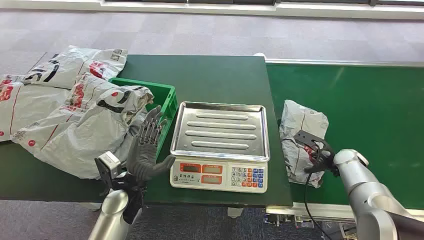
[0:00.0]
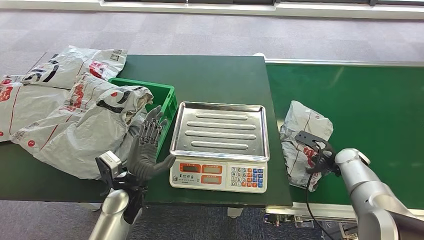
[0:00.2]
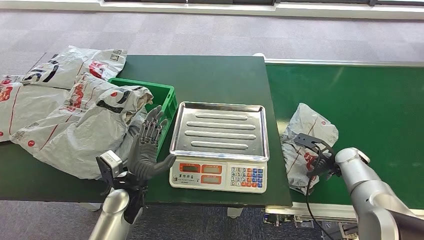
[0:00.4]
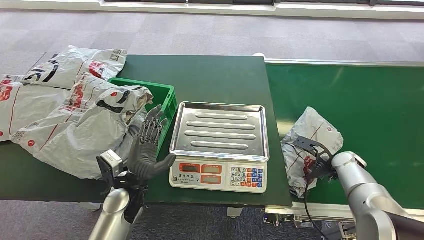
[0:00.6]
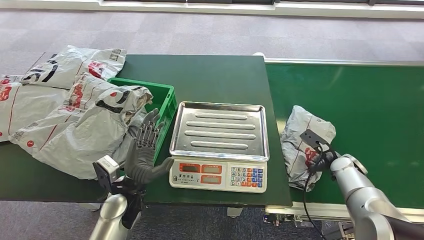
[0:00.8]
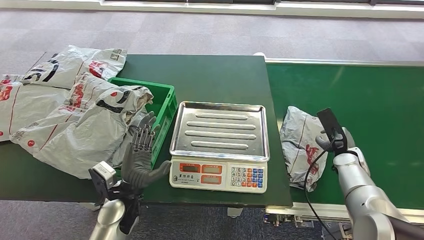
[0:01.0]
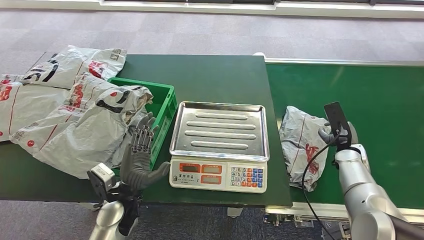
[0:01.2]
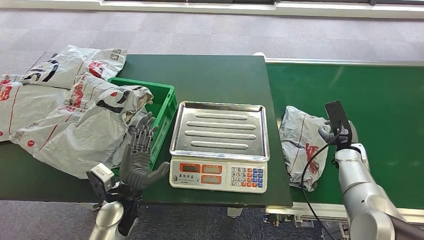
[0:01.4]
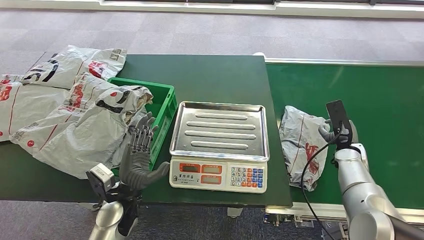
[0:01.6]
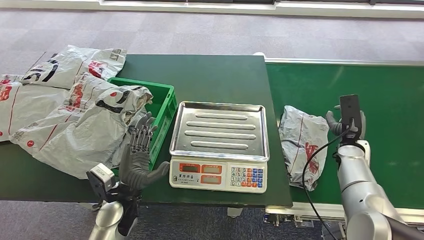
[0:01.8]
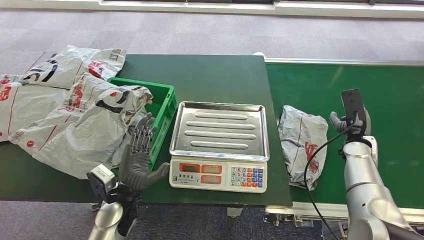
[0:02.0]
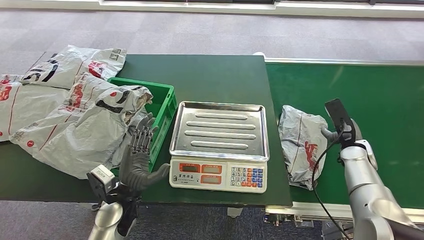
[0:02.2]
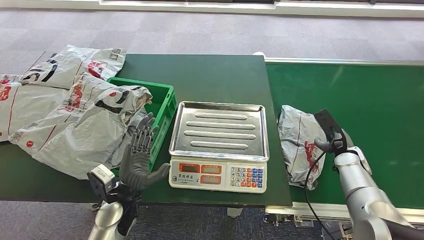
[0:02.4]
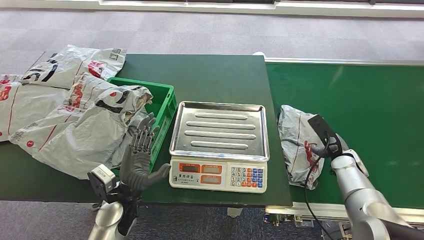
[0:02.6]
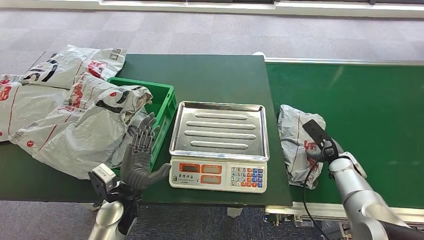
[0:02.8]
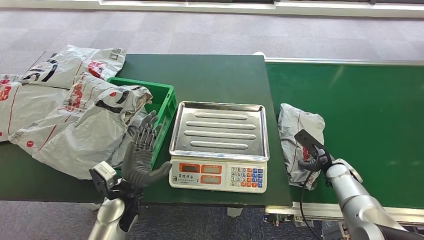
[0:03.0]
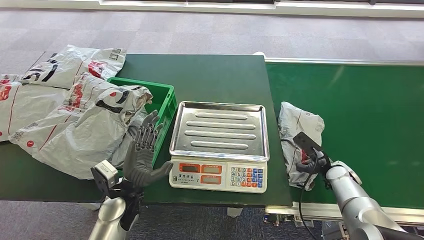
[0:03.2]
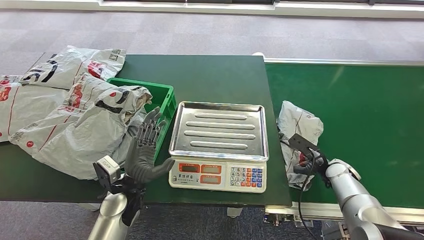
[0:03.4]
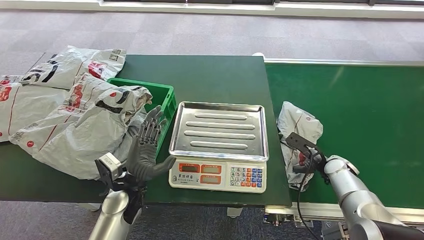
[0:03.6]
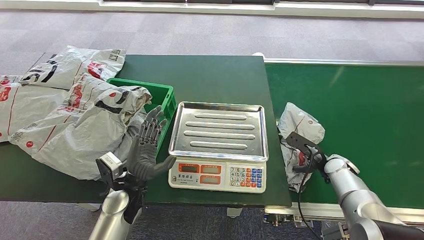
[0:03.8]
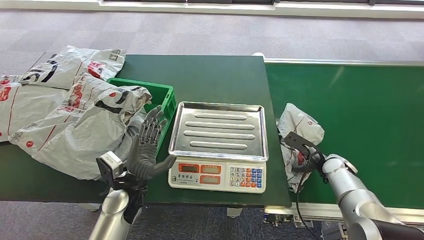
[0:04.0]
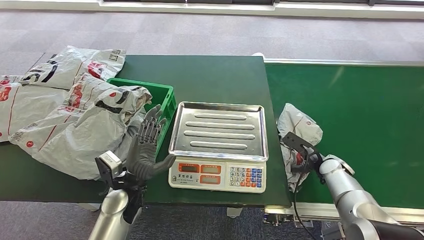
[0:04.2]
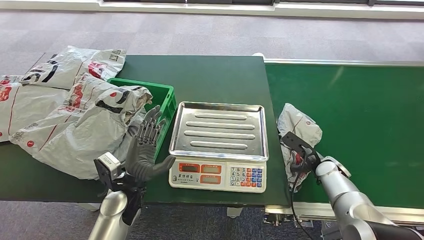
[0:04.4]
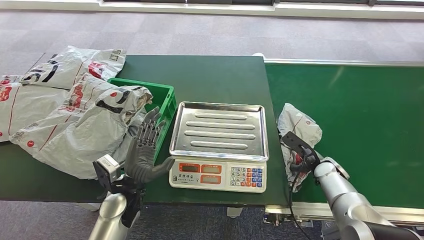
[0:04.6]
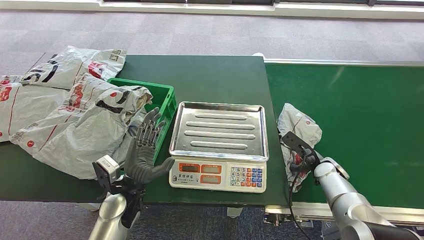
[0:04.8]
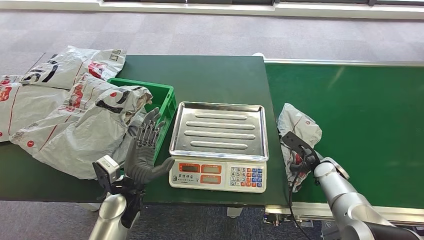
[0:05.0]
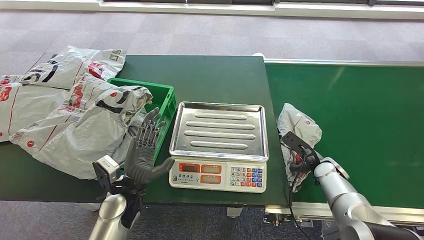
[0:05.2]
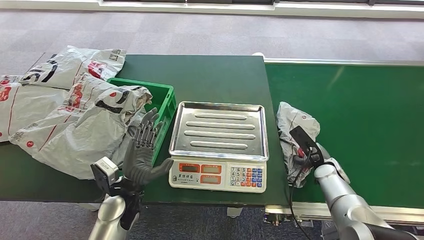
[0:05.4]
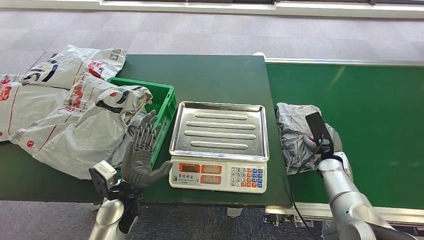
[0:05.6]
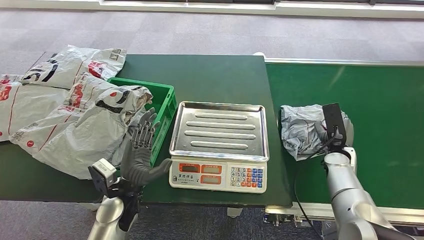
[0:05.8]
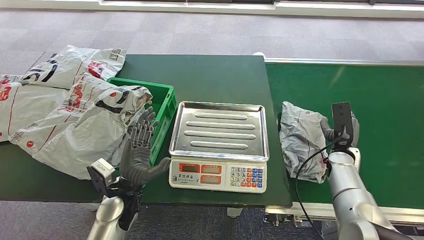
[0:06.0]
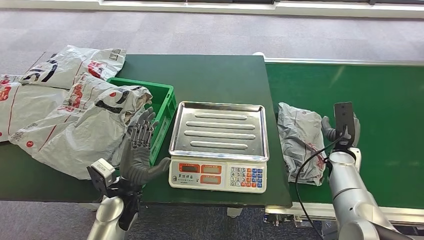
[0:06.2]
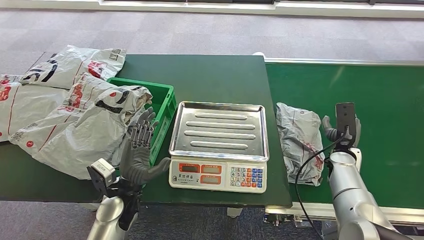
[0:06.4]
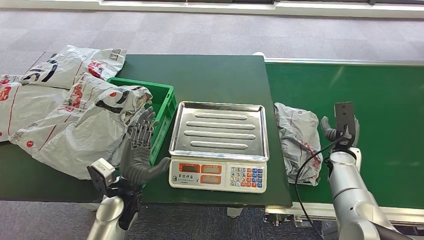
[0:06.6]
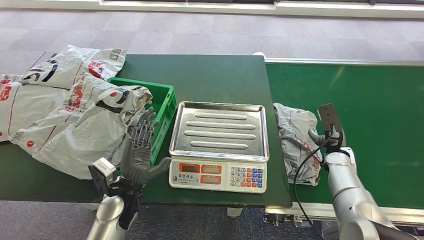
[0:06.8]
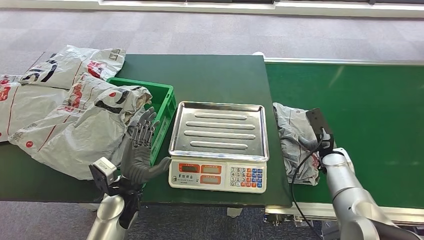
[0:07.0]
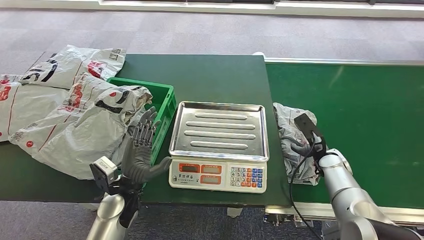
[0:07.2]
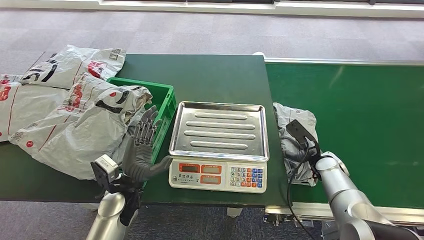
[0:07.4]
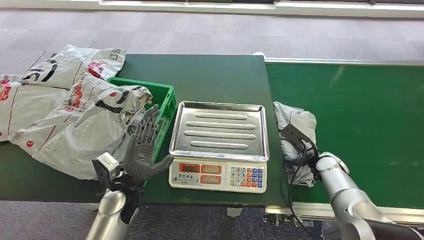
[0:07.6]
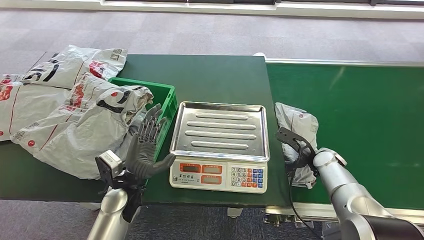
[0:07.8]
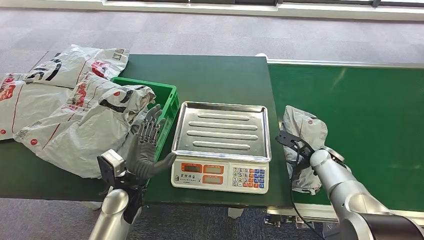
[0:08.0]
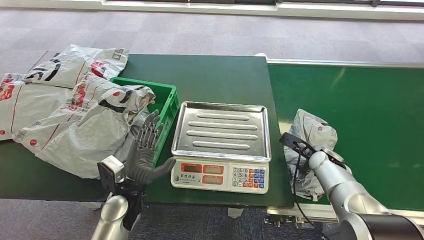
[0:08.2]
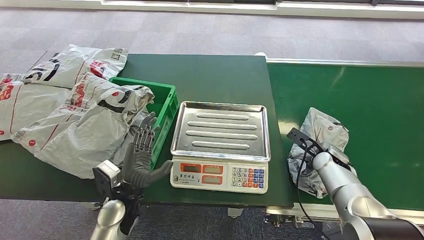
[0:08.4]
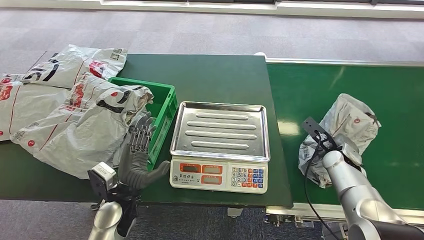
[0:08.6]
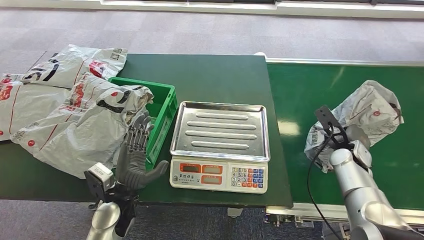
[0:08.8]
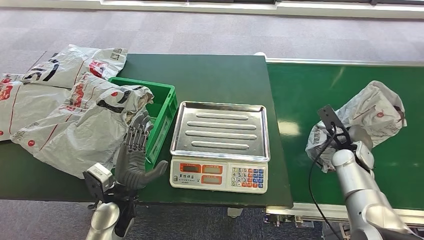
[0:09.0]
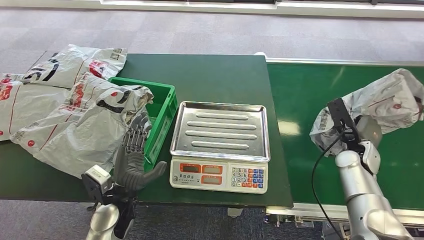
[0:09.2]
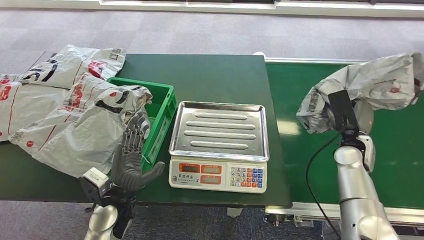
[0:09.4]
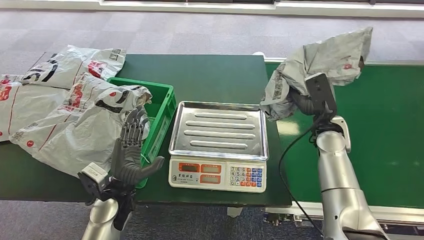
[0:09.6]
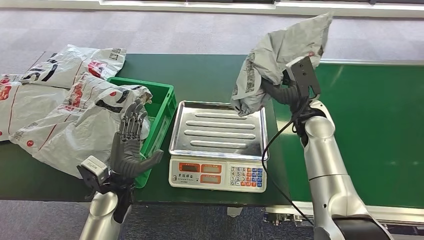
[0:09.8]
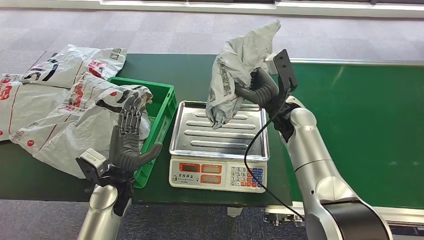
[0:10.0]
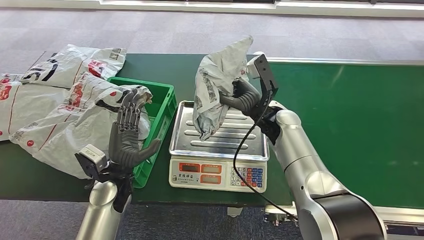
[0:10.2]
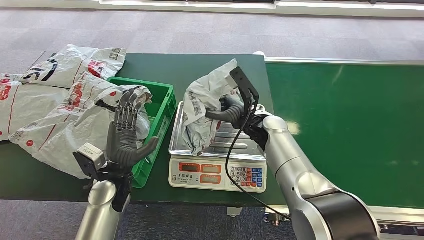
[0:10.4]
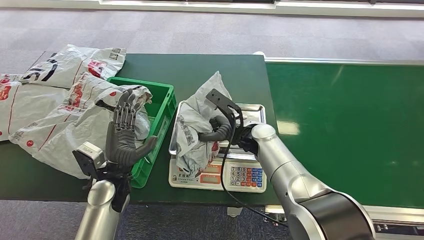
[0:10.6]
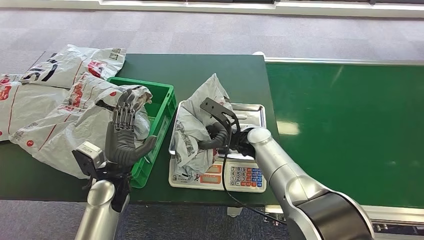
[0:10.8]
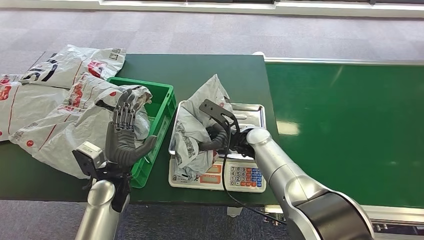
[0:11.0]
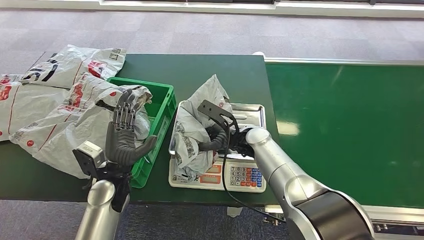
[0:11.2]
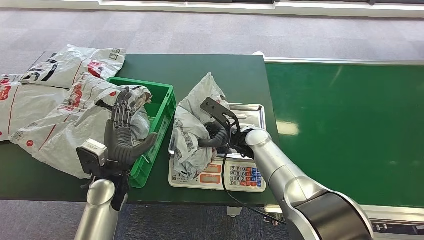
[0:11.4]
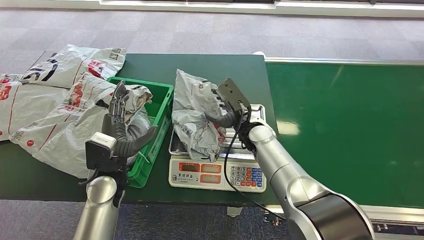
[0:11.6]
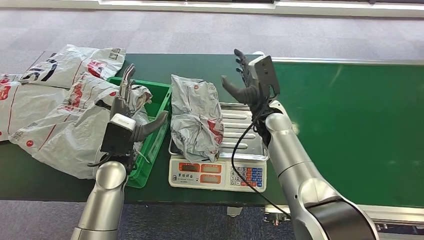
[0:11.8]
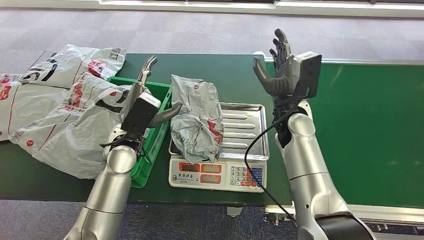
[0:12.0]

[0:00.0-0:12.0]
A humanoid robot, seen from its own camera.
Step, 0:00.0 to 0:08.6: Pick up the package from the conveyor belt.
Step, 0:09.0 to 0:10.8: Place the package onto the inbound machine.
0:01.6 to 0:03.0: The right hand shifts by some 5 cm.
0:03.0 to 0:04.4: The hands move only a little.
0:07.6 to 0:09.0: The right hand travels upward by about 5 cm.

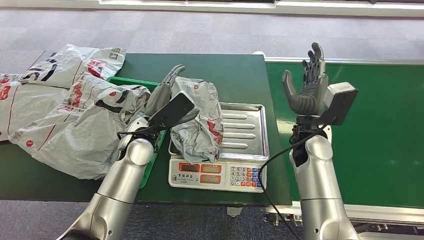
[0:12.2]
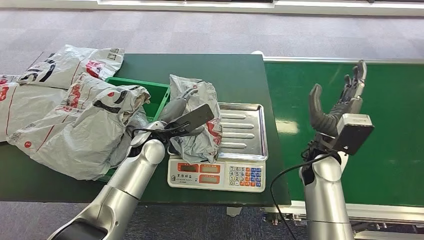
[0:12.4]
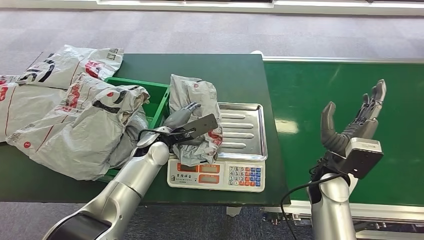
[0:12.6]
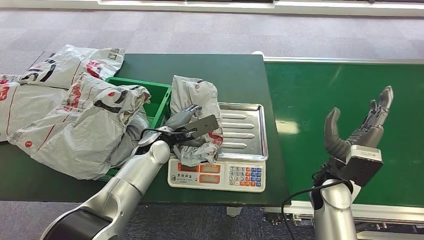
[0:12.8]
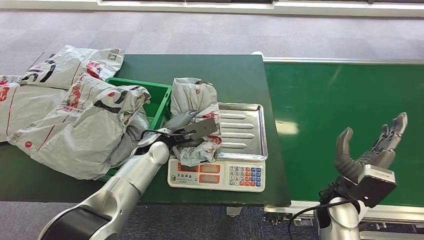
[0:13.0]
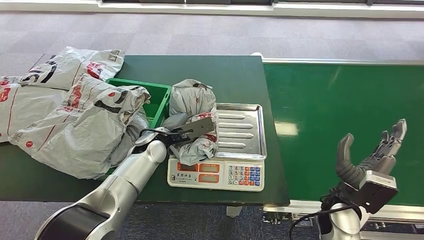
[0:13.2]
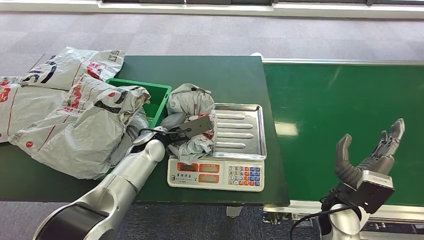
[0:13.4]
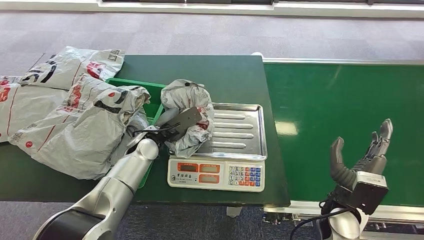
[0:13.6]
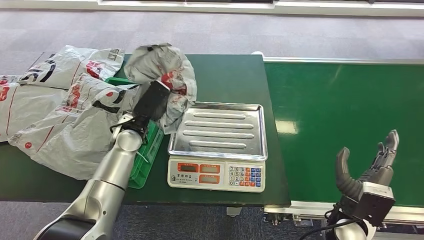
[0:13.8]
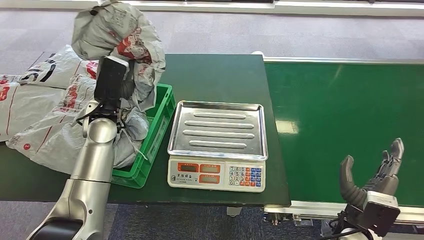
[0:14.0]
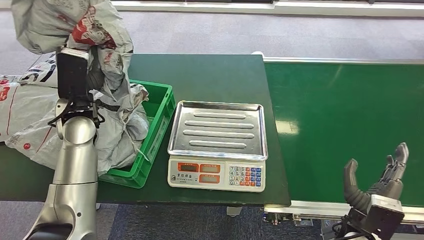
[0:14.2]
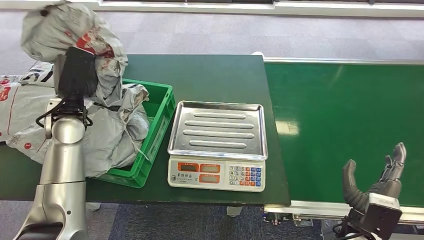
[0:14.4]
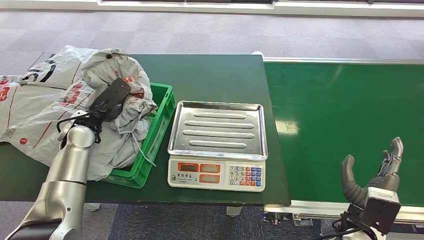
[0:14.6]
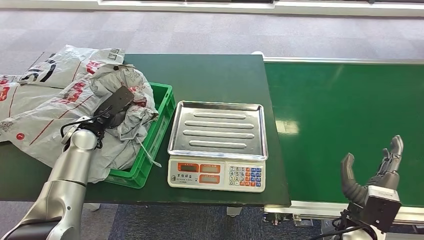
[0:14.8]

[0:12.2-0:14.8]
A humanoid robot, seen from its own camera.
Step, 0:12.2 to 0:13.6: Pick up the package from the inbound machine.
Step, 0:13.8 to 0:14.8: Place the package into the parcel locker.

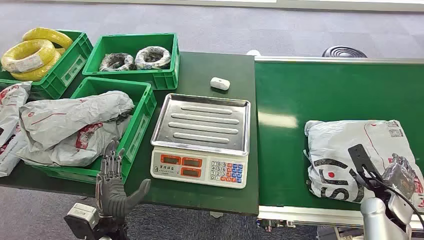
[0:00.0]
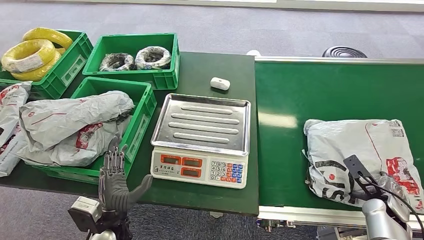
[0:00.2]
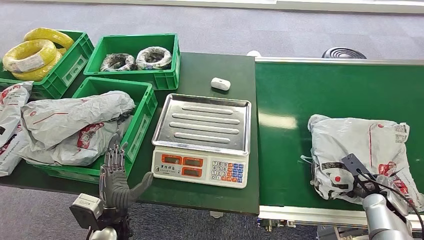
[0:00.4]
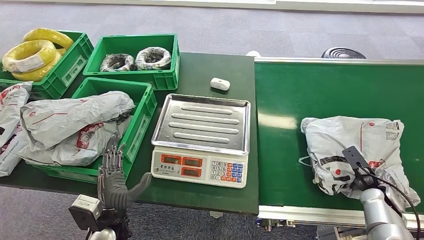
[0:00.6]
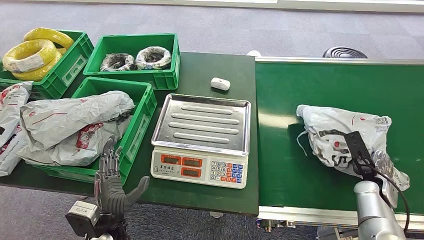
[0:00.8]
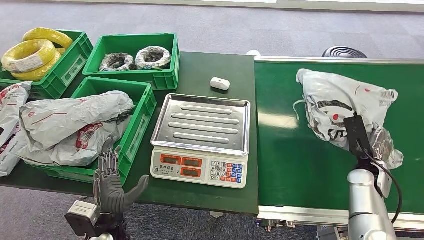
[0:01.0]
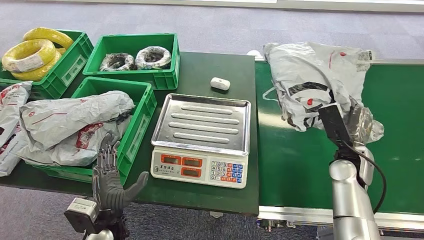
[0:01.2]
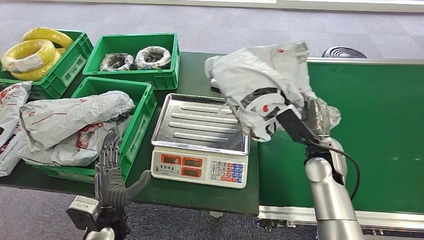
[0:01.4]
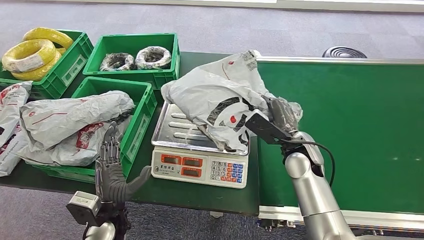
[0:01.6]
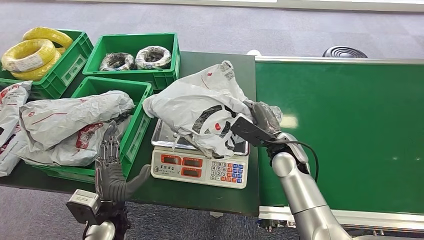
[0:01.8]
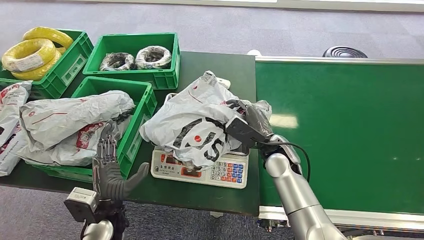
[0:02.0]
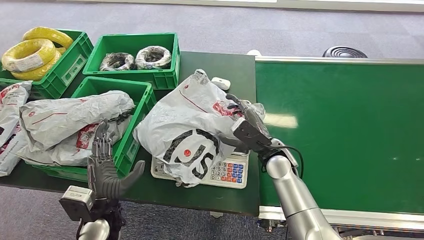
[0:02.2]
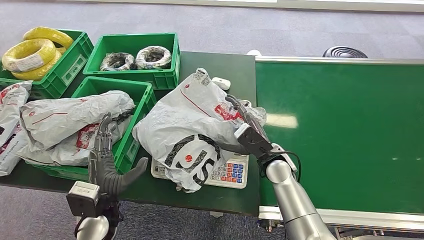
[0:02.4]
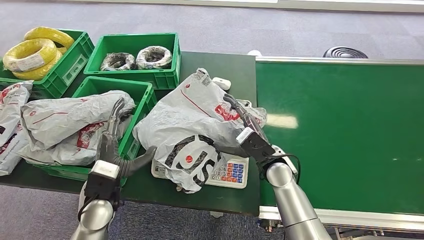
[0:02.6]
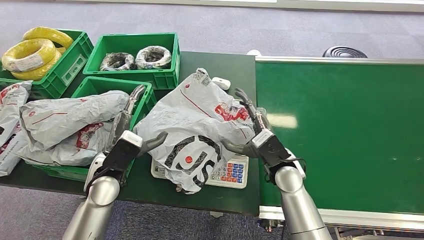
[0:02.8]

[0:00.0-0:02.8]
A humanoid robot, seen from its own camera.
Step, 0:00.0 to 0:01.0: Pick up the package from the conveyor belt.
Step, 0:01.2 to 0:02.2: Place the package onto the inbound machine.
